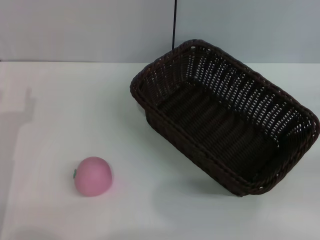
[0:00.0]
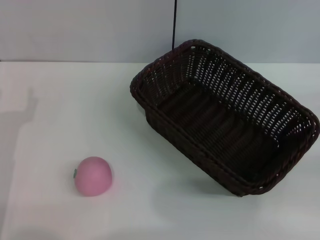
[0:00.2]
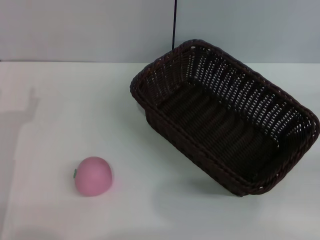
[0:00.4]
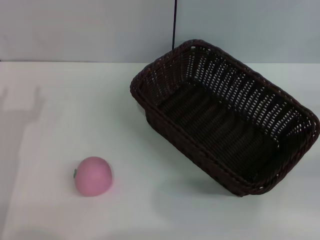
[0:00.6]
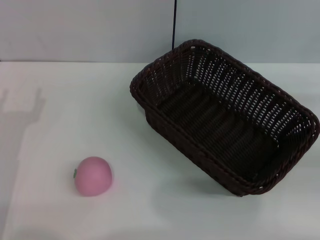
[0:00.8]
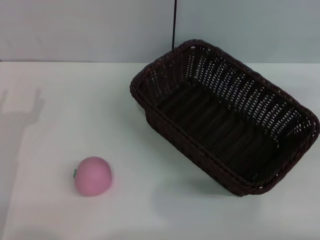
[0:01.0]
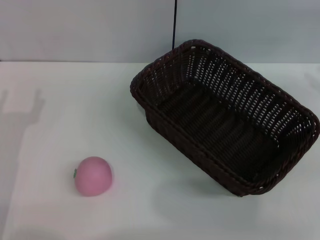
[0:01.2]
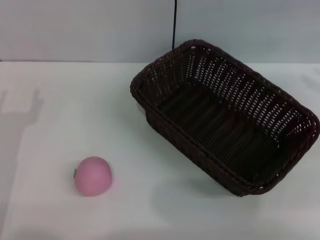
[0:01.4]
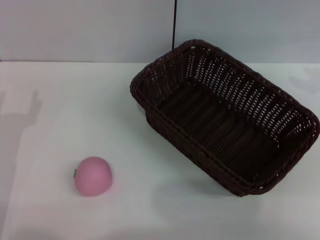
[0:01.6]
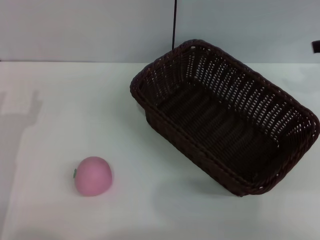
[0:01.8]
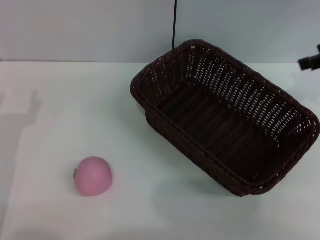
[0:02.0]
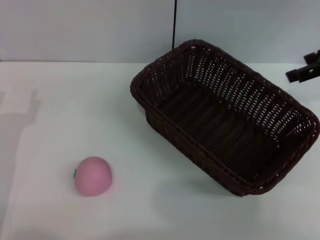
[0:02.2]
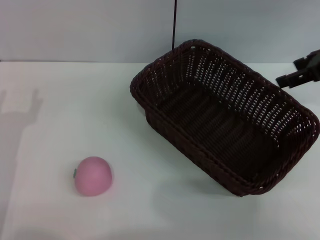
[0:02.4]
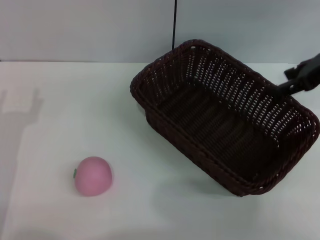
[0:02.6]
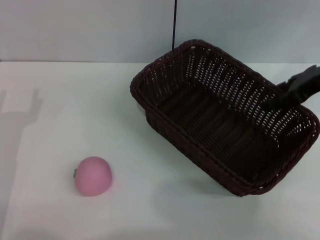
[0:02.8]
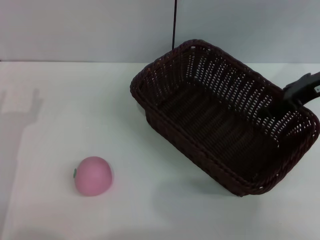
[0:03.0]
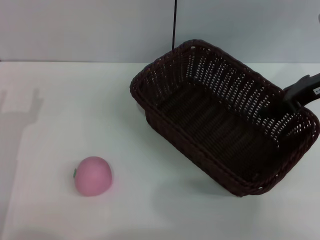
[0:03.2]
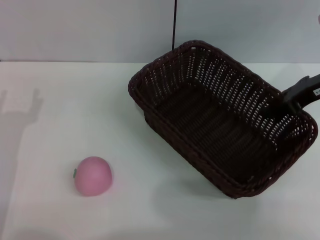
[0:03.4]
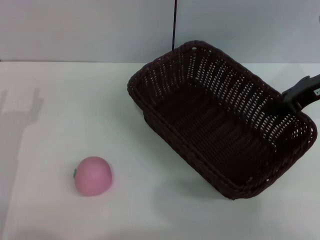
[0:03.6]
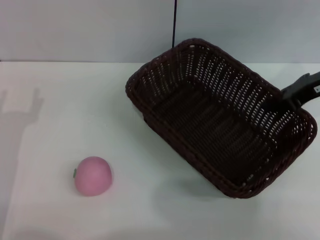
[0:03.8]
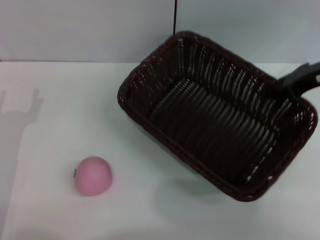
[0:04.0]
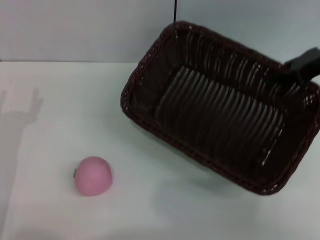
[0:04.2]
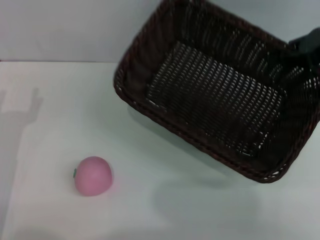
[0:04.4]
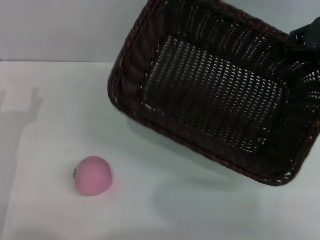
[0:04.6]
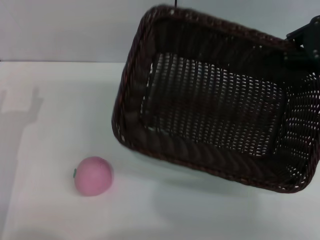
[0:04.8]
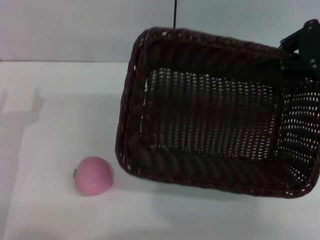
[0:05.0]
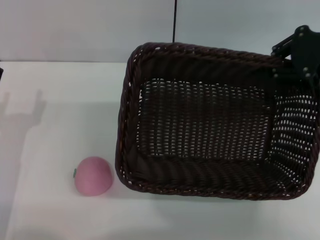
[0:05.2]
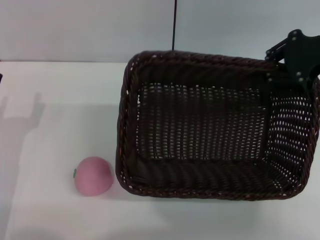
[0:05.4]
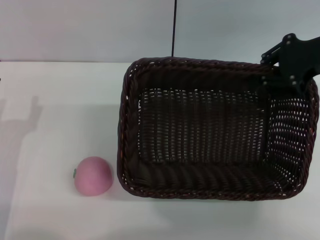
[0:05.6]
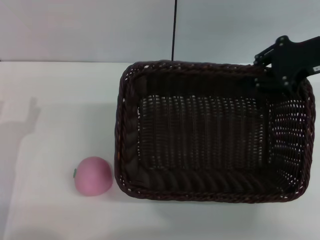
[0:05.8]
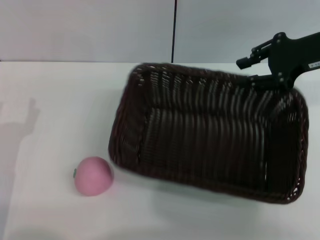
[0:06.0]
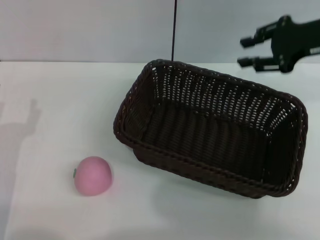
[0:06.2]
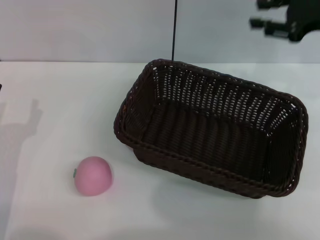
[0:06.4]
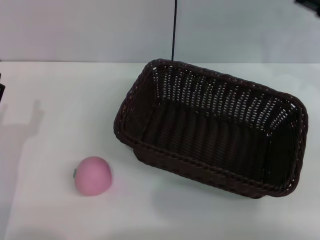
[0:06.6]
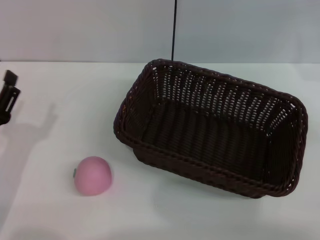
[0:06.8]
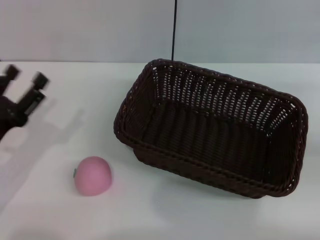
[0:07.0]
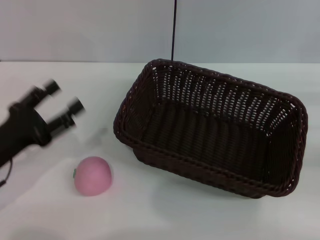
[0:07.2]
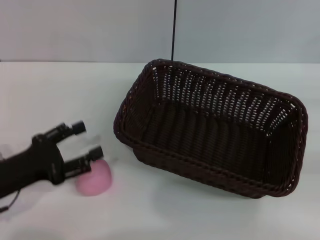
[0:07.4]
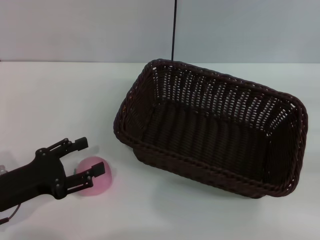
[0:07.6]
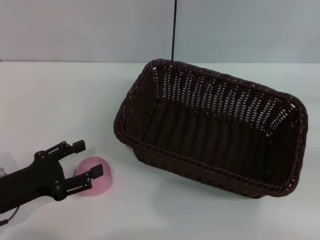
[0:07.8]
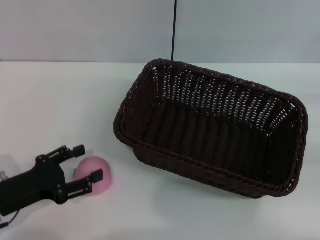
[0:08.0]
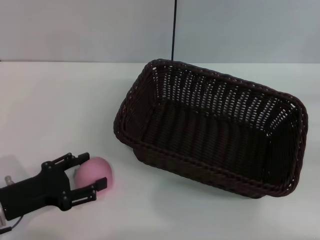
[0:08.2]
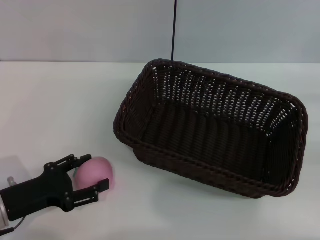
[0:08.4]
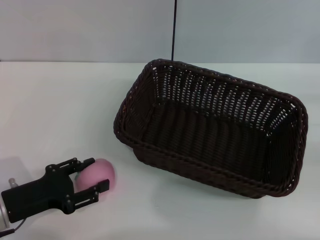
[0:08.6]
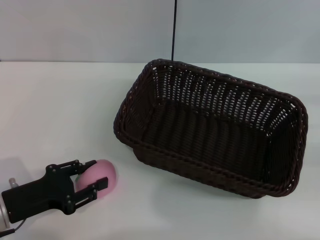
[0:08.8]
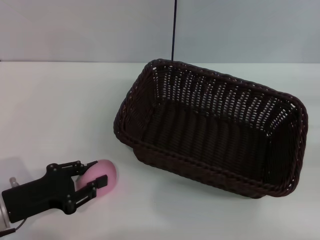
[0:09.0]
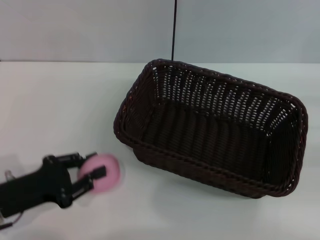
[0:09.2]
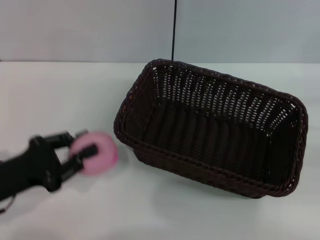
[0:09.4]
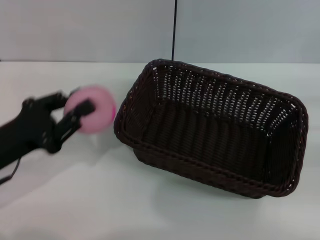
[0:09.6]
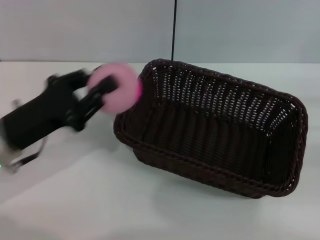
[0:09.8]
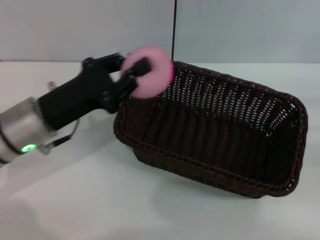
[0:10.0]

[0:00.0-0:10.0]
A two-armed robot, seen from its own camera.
Step, 0:00.0 to 0:03.6: Pick up the dark basket with the right gripper.
Step, 0:04.0 to 0:06.4: Place the dark basket in the center of view with the right gripper.
Step, 0:06.6 to 0:09.4: Pick up the peach with the left gripper.
0:00.0 to 0:01.4: The right gripper travels upward and forward by roughly 20 cm.
0:01.4 to 0:02.8: The right gripper goes roughly 10 cm to the left.
0:02.8 to 0:04.2: The right gripper closes up.
0:05.8 to 0:07.2: The right gripper shifts roughly 20 cm to the right, backward and downward, and opens up.
0:08.6 to 0:10.0: The left gripper shifts roughly 15 cm forward, upward and to the right, and closes.

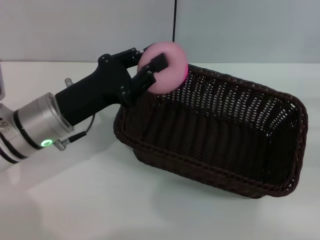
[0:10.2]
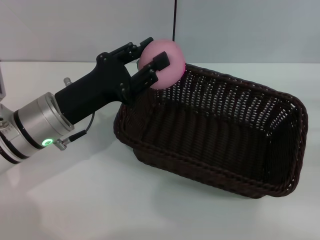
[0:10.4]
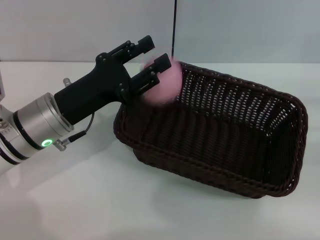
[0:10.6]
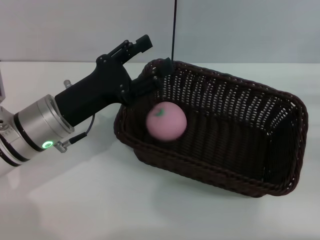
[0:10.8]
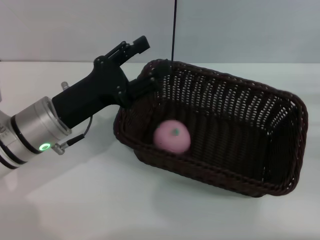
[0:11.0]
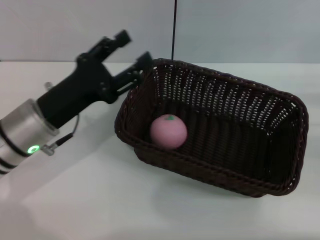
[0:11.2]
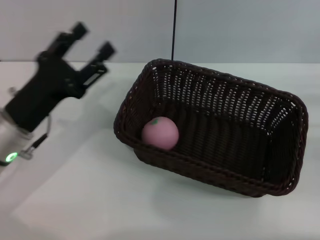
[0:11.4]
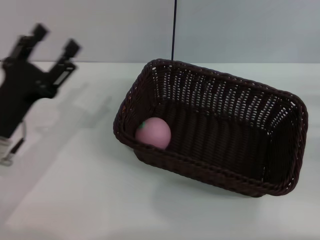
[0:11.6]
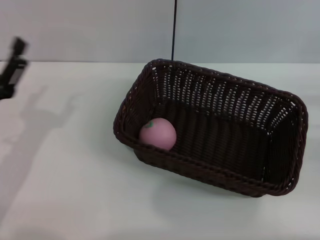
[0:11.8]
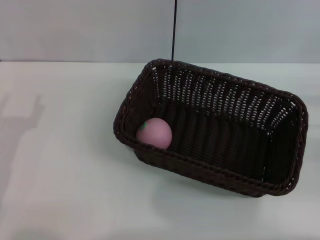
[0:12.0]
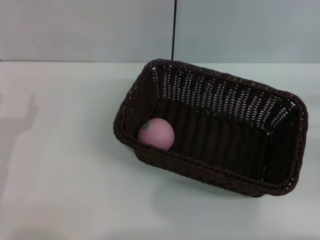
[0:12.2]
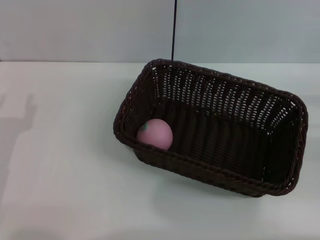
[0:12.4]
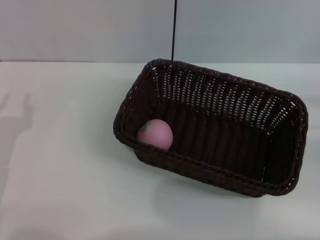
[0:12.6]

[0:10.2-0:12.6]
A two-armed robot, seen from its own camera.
0:10.2 to 0:11.4: The left gripper moves about 5 cm, and opens its fingers.
0:11.4 to 0:12.6: The left gripper moves to the left and backward, approximately 10 cm.
